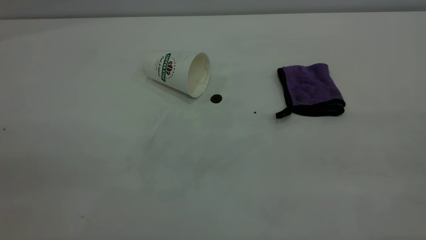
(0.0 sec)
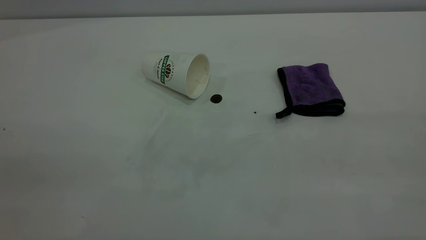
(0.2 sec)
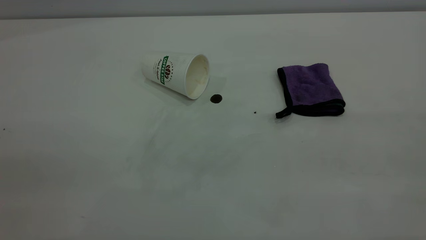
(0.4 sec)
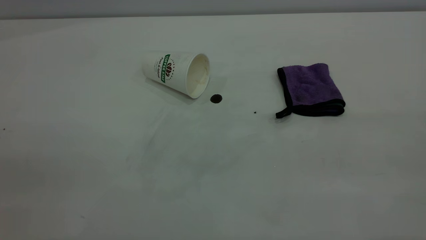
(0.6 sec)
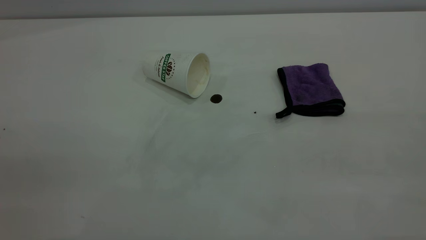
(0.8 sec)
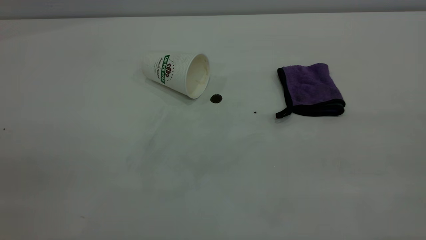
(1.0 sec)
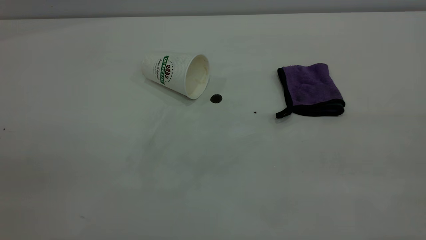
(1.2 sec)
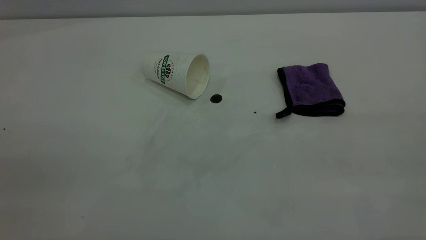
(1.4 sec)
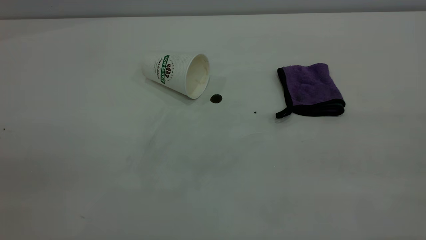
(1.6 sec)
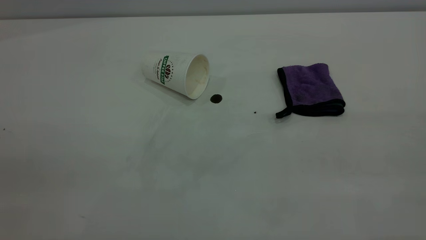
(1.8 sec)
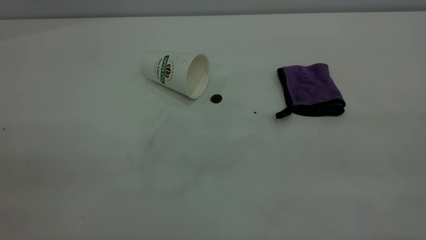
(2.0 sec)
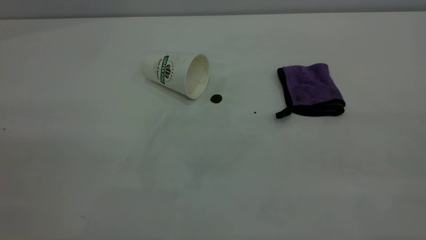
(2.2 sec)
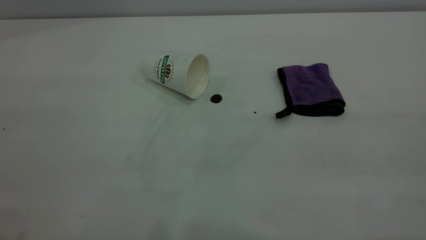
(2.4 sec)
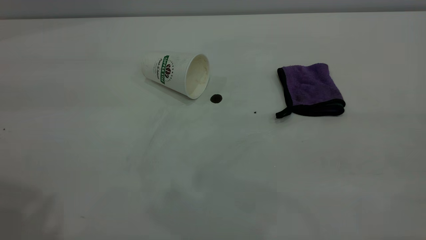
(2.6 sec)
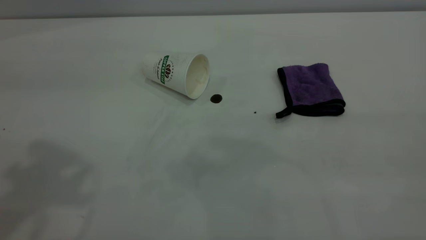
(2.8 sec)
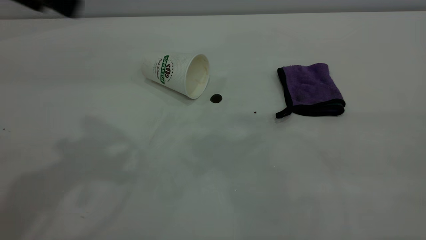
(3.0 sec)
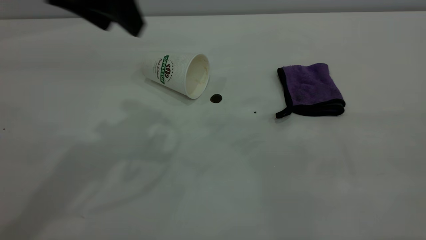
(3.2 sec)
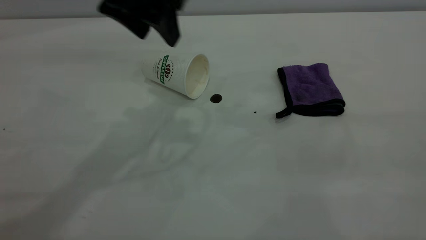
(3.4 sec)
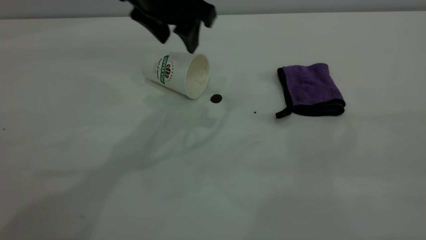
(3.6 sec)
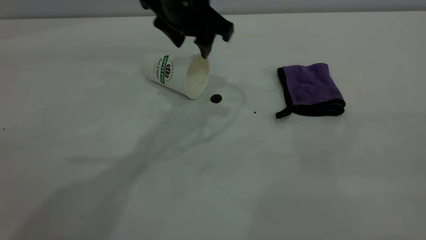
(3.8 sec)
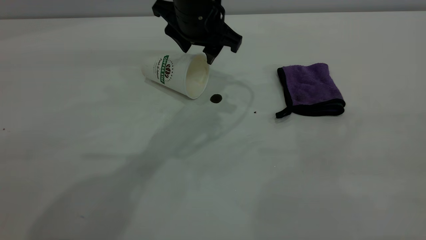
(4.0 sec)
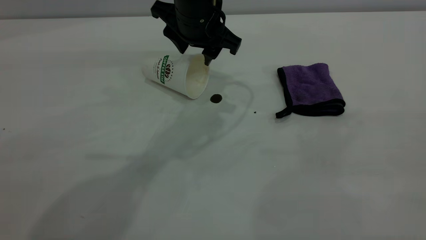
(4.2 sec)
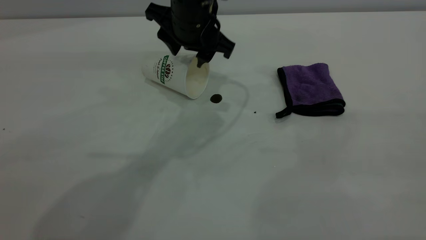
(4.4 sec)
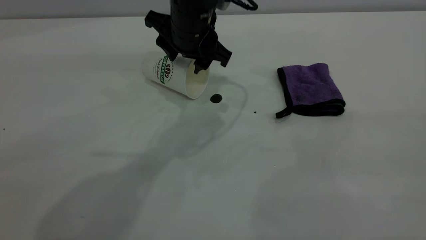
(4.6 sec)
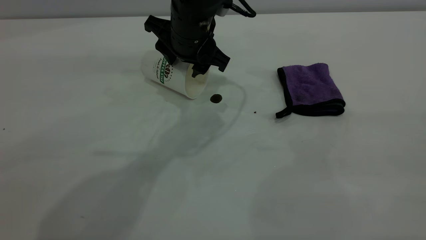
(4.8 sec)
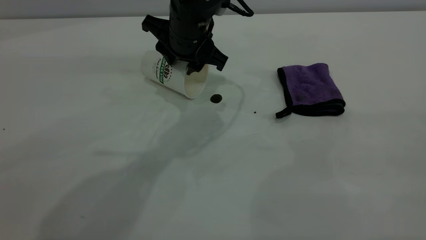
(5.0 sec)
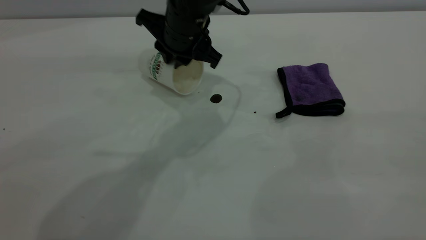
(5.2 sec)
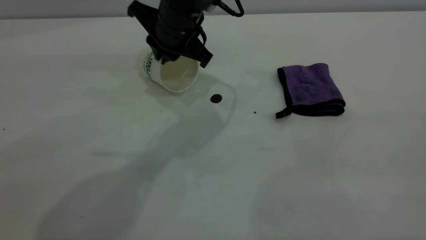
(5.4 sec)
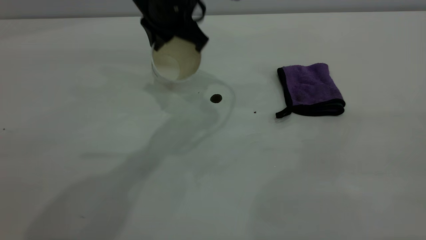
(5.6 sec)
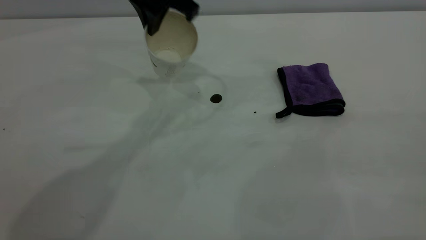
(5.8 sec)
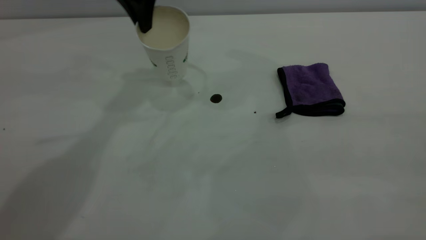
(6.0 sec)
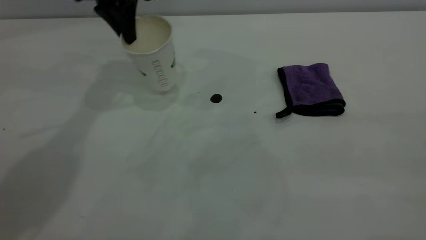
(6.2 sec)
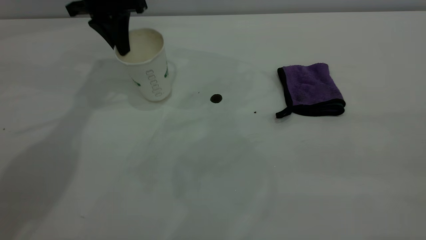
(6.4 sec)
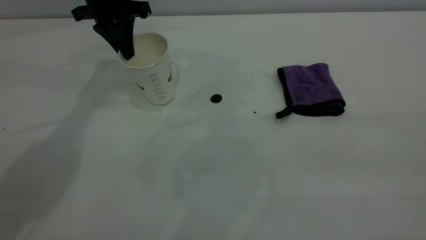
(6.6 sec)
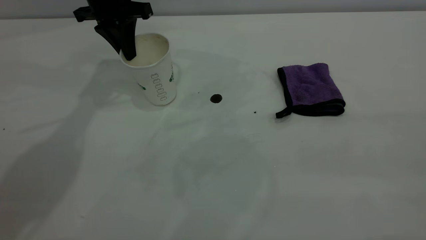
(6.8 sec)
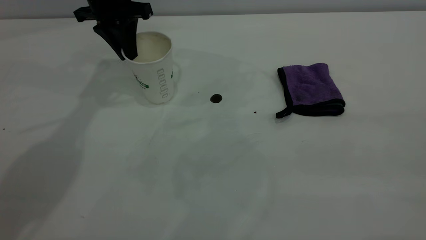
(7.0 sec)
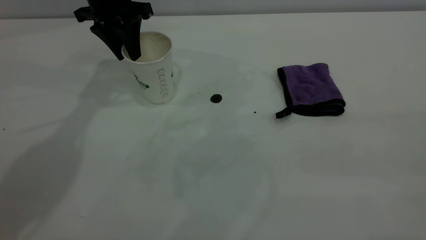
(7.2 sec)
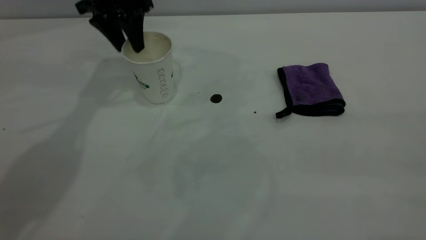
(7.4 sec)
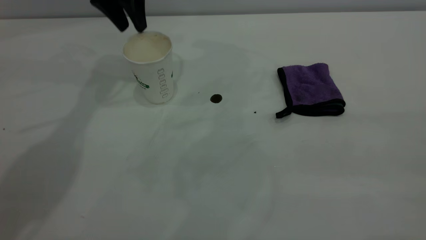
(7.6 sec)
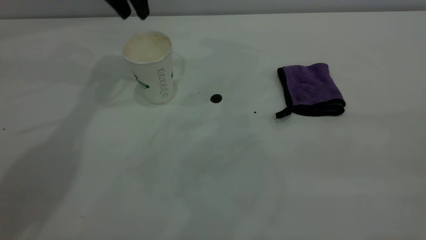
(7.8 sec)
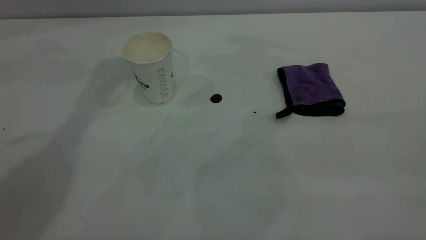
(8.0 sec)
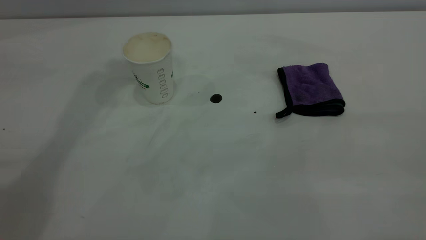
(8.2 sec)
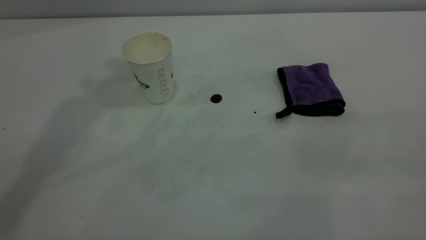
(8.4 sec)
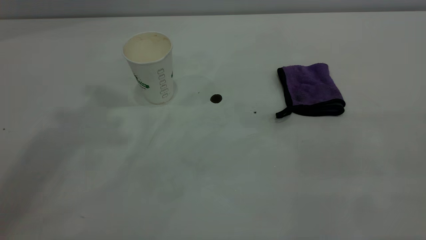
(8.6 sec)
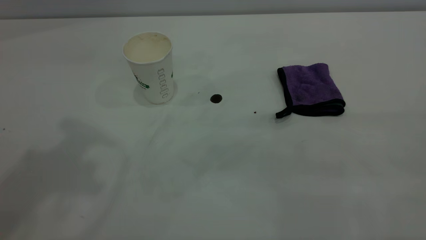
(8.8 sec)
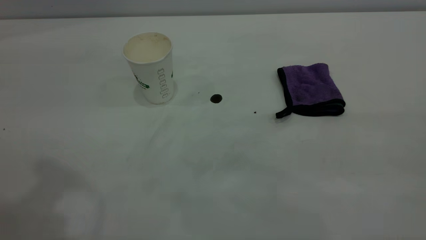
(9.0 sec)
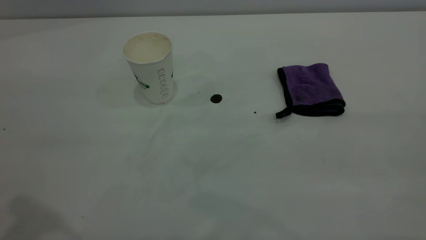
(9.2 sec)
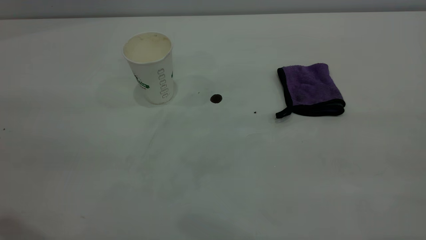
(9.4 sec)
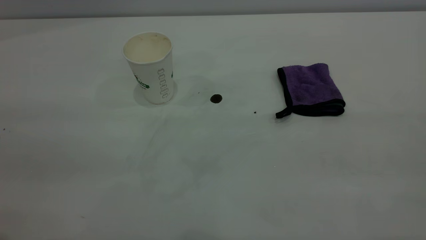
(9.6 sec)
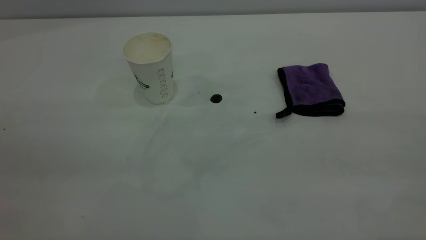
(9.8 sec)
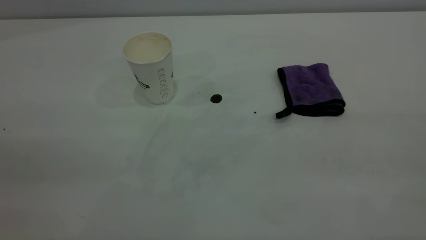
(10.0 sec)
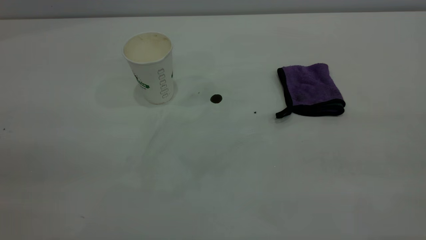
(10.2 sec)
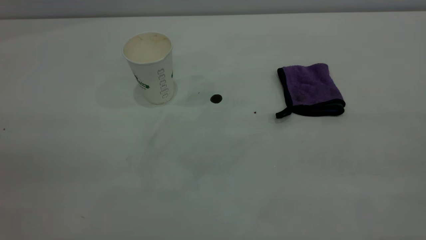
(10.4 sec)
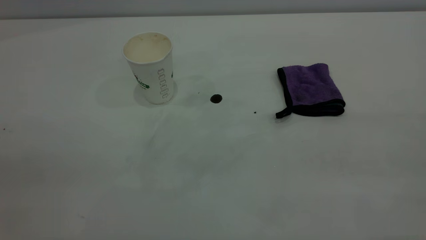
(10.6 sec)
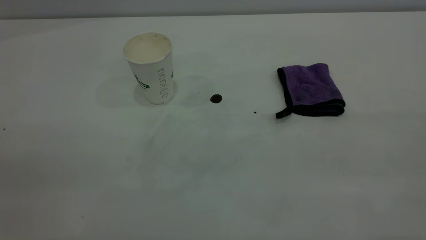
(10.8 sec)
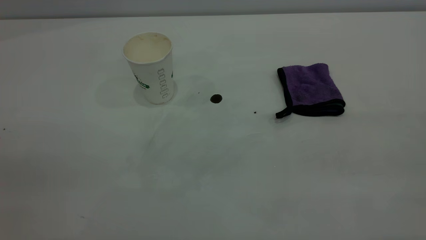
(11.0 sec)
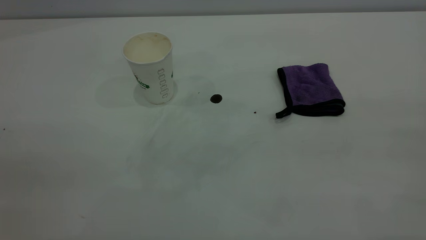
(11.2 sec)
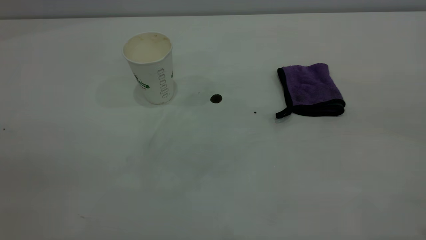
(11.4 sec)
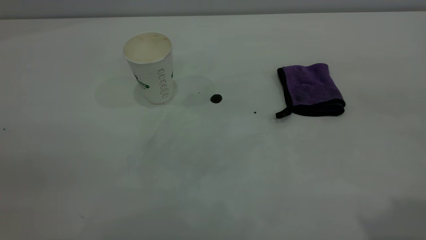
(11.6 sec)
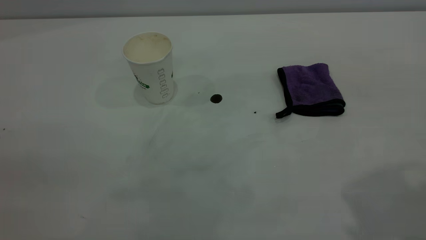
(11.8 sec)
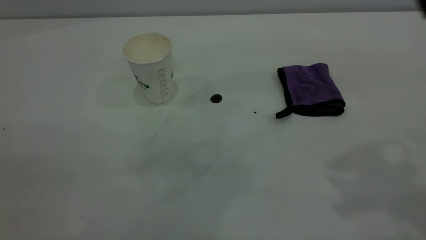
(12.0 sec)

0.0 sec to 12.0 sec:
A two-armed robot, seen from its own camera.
Task of the whole recording: the left gripper pick up the fallen cup and place it upright, the right gripper grasp the purple rag and wipe the coffee stain on the table, the right gripper put the purple rag back in its original position.
Step, 0.0 sec to 7.4 sec: Stand the paper cup upright.
0.0 sec to 1.6 sec: The two grippers keep their place.
1.6 sec to 3.0 sec: The left gripper is displaced forward by approximately 30 cm.
3.0 sec to 4.4 sec: The left gripper moves to the right, downward and forward, some 25 cm.
4.4 sec to 6.0 sec: The left gripper goes some 15 cm to the left, upward and forward, and closes its fingers.
6.0 sec to 7.6 sec: The left gripper ends up some 5 cm from where it was, and opens its fingers.
7.6 sec to 9.0 sec: The left gripper heads backward and upward, covering some 35 cm.

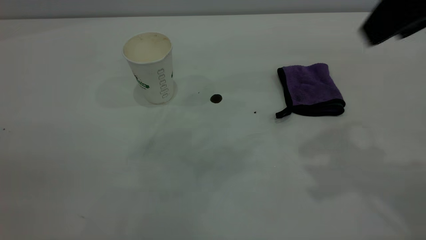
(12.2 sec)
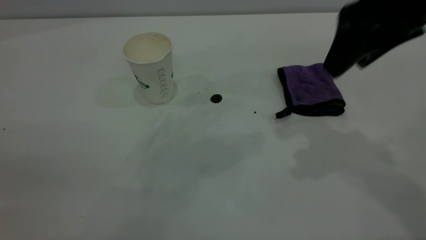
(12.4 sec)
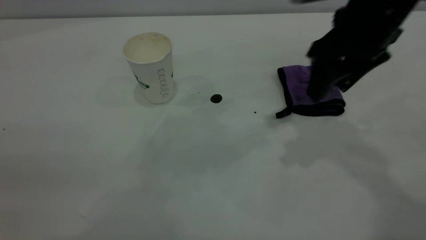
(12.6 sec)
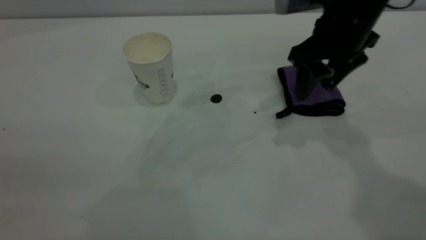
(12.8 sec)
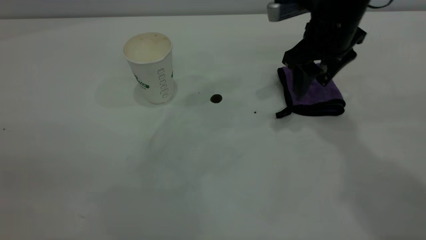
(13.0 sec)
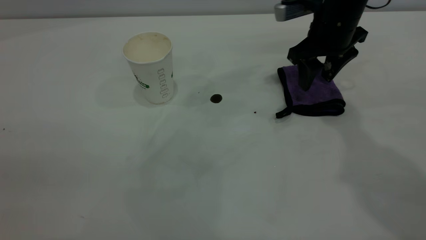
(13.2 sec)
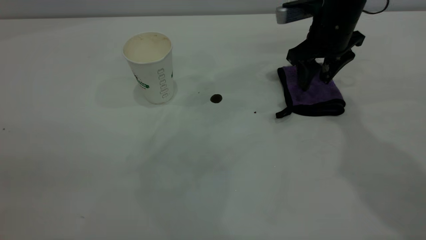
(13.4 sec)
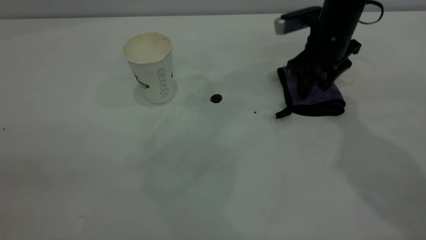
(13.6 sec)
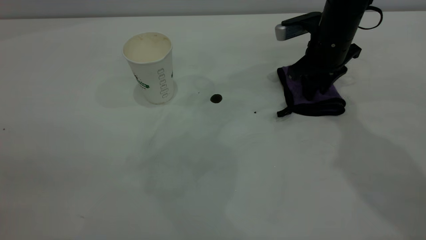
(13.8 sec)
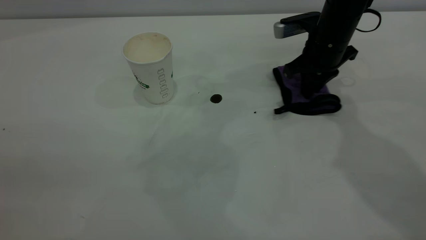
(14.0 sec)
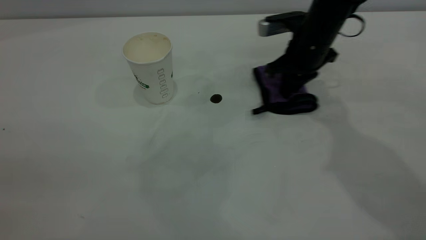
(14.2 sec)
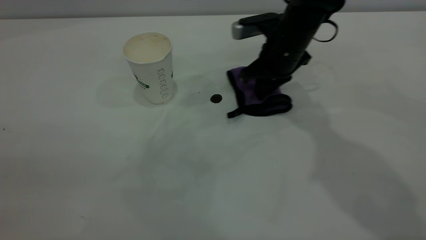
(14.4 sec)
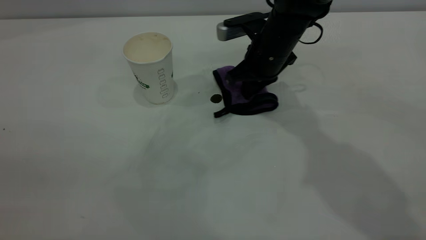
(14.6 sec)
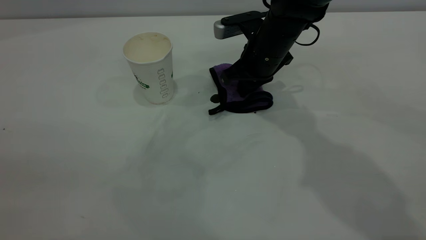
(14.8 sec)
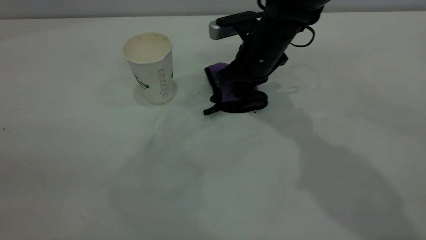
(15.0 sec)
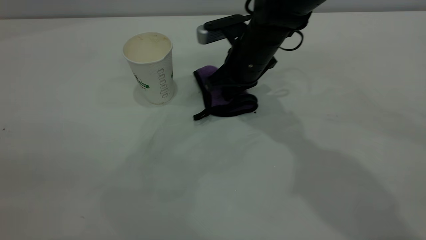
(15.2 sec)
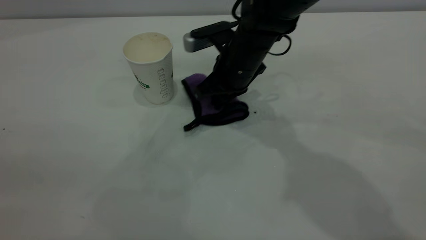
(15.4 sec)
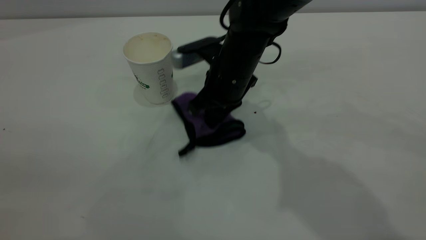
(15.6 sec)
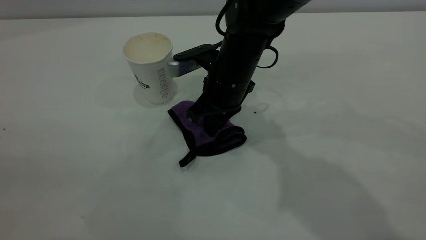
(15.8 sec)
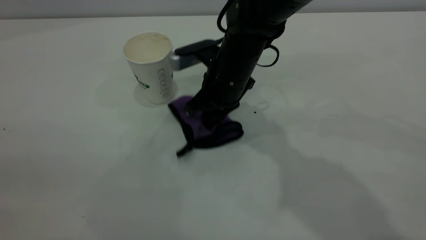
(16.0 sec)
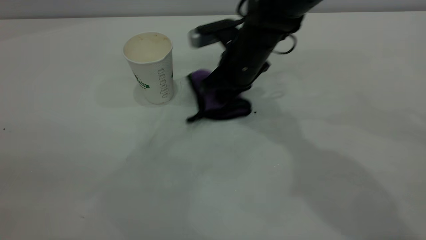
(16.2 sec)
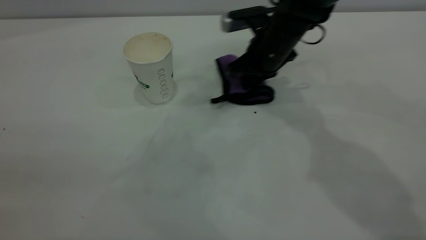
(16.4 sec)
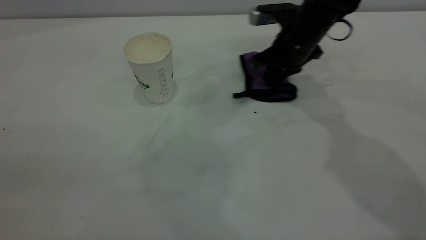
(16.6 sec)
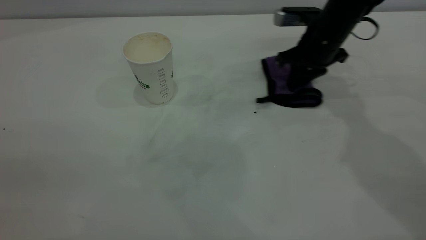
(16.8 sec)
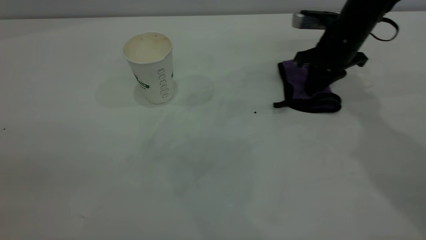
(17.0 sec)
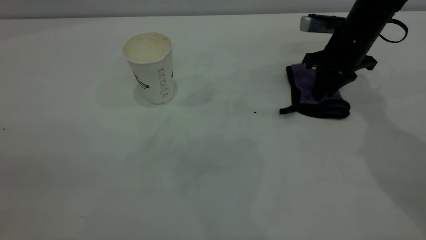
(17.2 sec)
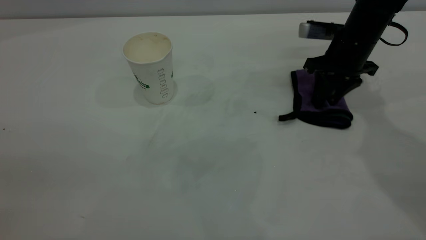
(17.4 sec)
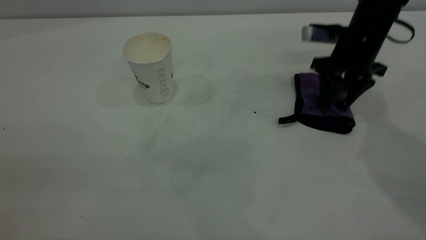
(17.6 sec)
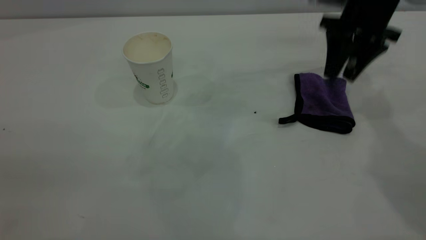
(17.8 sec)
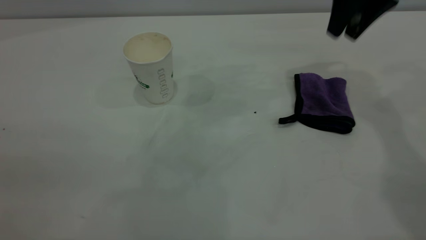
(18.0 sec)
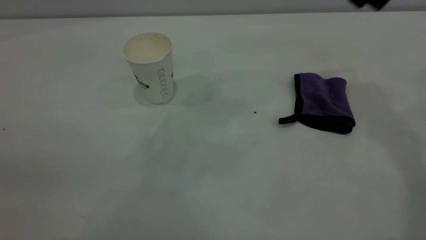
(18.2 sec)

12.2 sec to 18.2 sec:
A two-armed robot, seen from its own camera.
Task of the whole recording: the left gripper pick up the fallen cup and place it upright, the right gripper grasp the purple rag and wipe the coffee stain on the table, the right gripper put the purple rag back in its original position.
Step, 12.2 sec to 17.8 sec: Wipe the stains off the table with a rag.
12.2 sec to 13.8 sec: The right gripper is displaced downward and forward by roughly 30 cm, and closes its fingers.
13.8 sec to 15.2 sec: The right gripper travels to the left by roughly 15 cm.
15.2 sec to 16.6 sec: The right gripper moves to the right, some 10 cm.
16.6 sec to 18.2 sec: The right gripper travels upward by about 25 cm, and opens.
